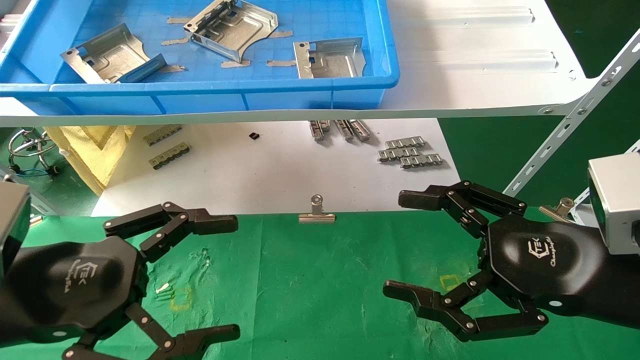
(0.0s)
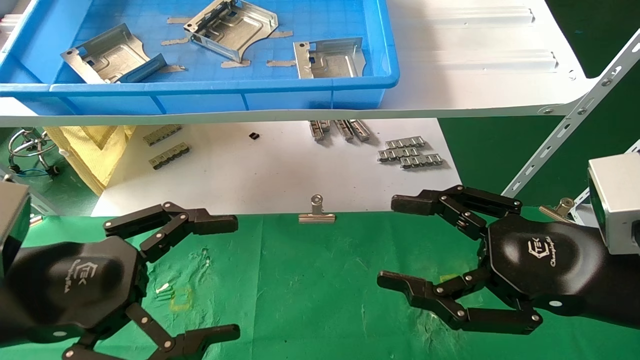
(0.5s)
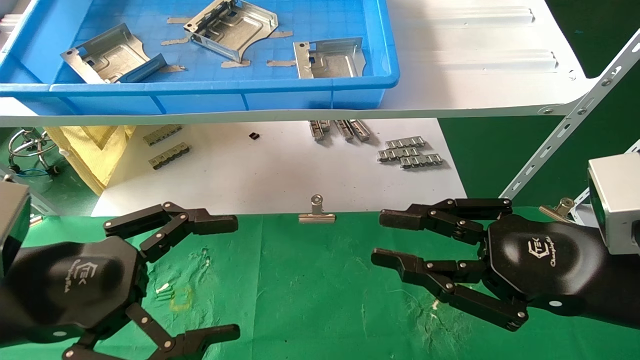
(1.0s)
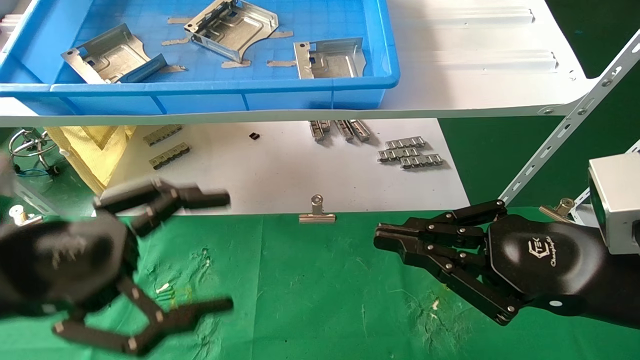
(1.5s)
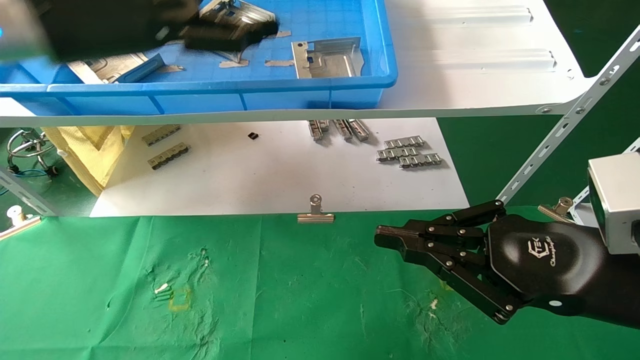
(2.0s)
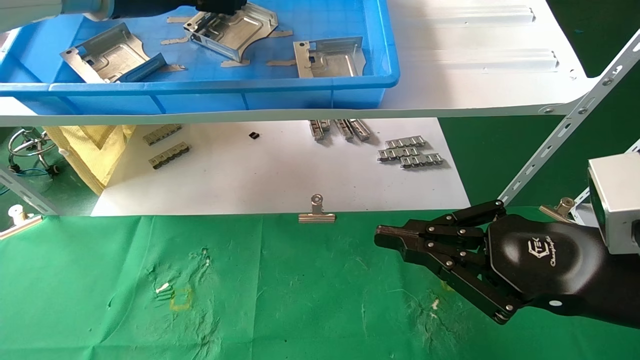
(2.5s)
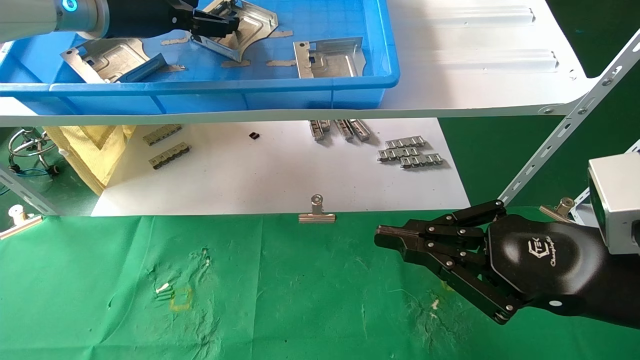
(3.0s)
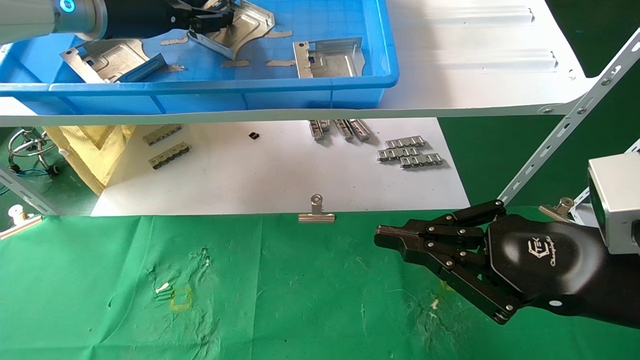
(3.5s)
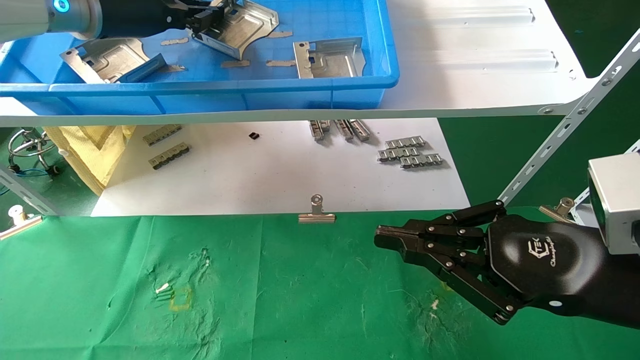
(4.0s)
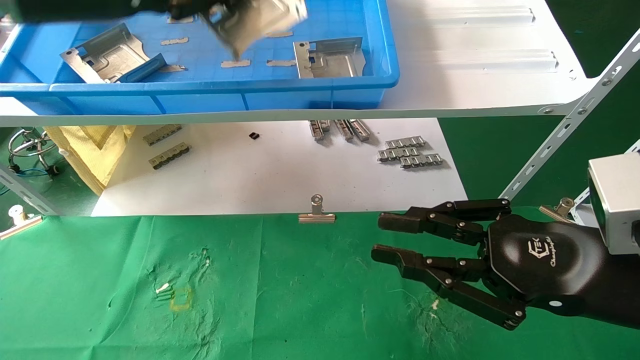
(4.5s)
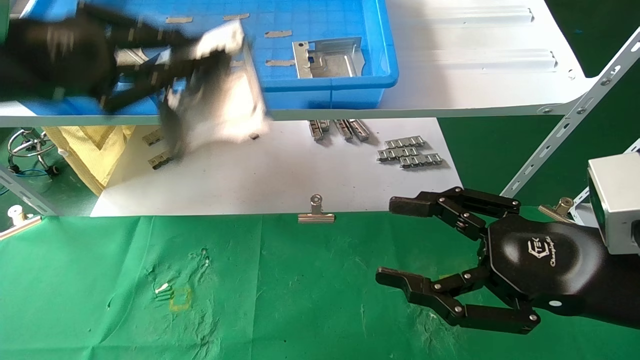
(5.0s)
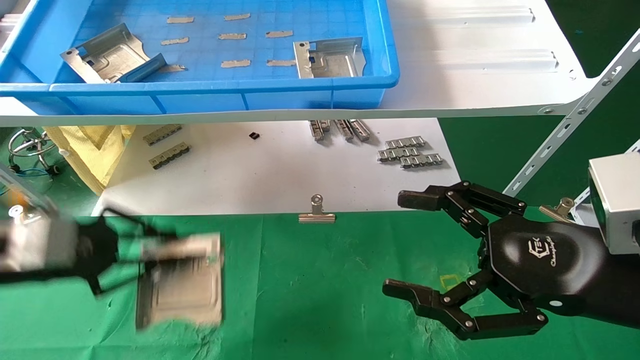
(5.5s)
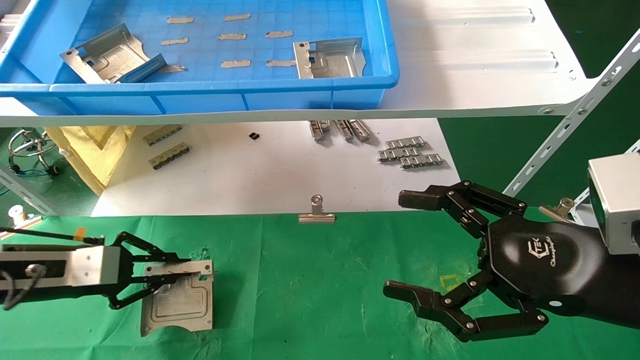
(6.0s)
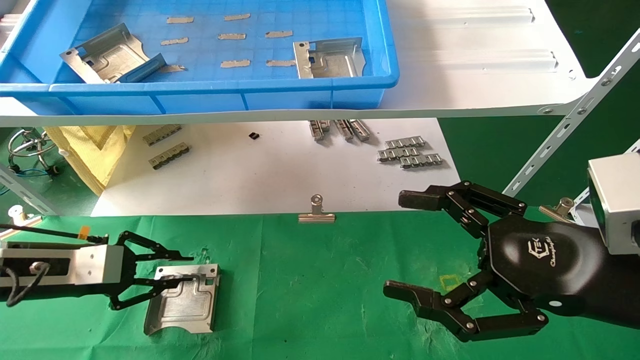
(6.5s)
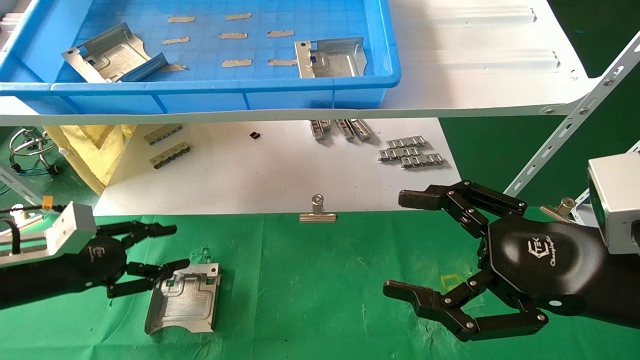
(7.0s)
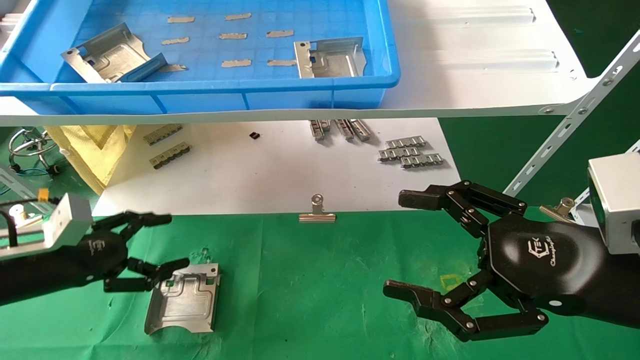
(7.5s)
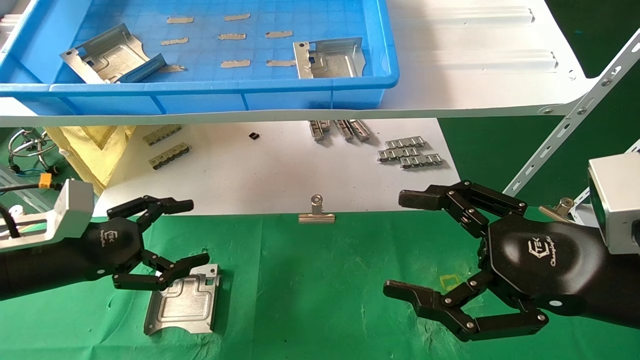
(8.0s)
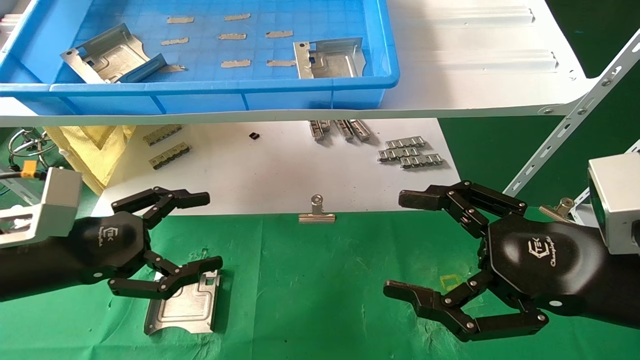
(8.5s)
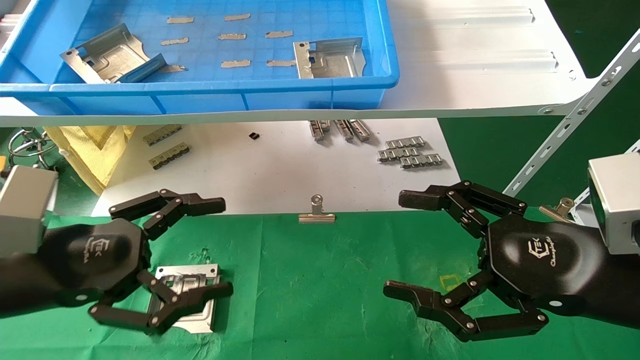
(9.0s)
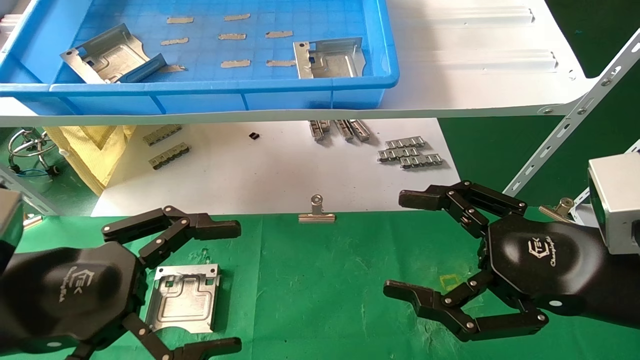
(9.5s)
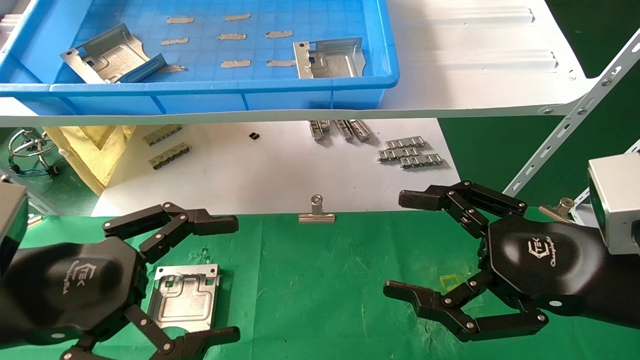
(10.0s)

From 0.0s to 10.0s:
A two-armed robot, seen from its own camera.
Task of the whole recording: use the mechanical arm to pick up the parts and place them on the table.
Step, from 2.0s to 3.5s: Pick up the hard drive bracket from the feeding area.
Step, from 4.0s to 6.5s: Place the hard drive bracket into the box.
From 0.0s to 2.0s: The right gripper closes up. The left gripper shifts roughly 25 cm upward and forward.
From 2.0s to 4.0s: The left gripper heads forward, covering about 5 cm, and closes up.
From 4.0s to 6.0s: The left gripper travels downward by some 30 cm; the right gripper opens up.
From 6.0s to 8.0s: The left gripper opens up.
From 8.0s to 10.0s: The left gripper moves backward and to the right, about 15 cm.
